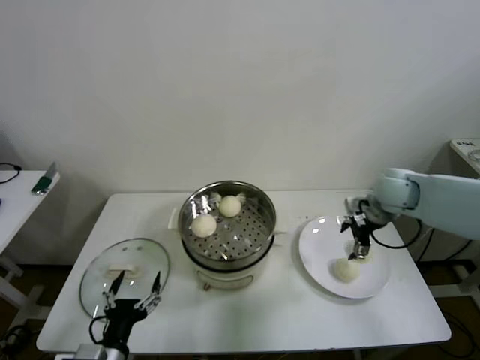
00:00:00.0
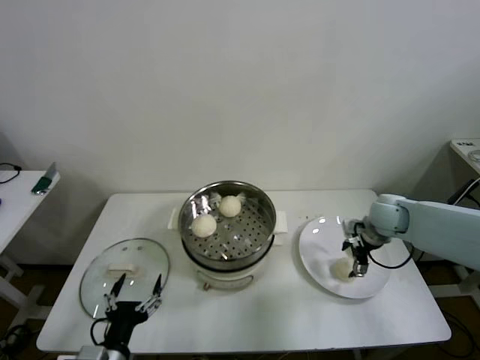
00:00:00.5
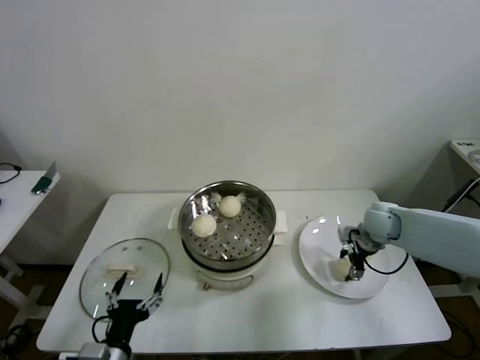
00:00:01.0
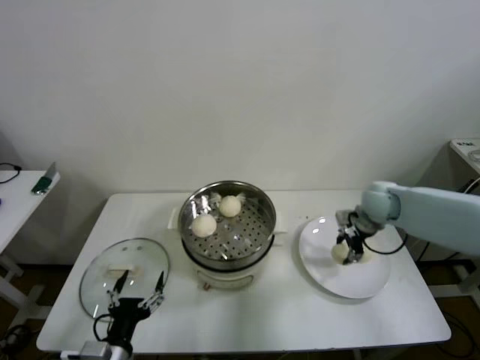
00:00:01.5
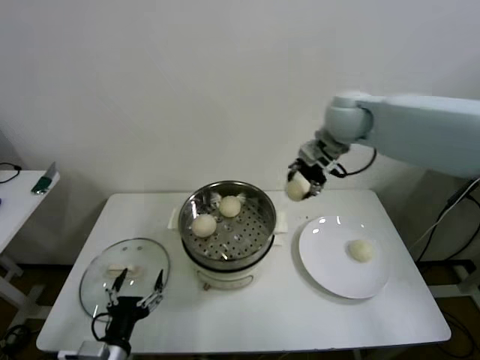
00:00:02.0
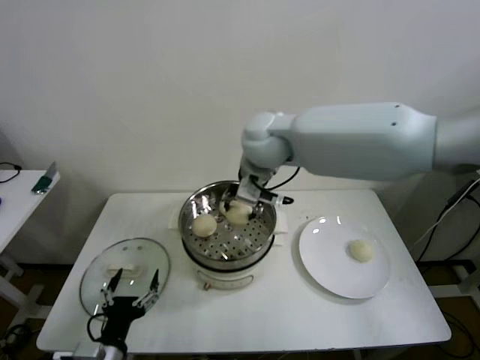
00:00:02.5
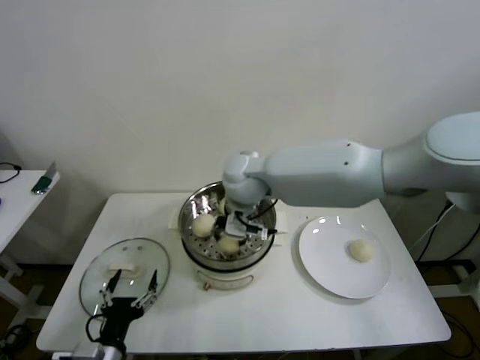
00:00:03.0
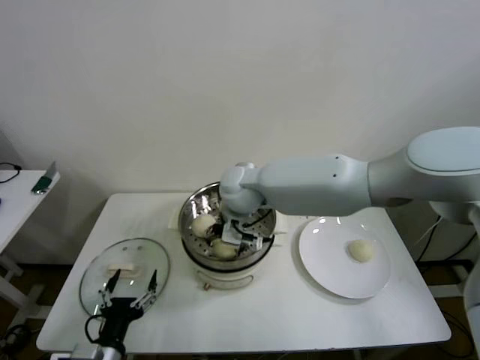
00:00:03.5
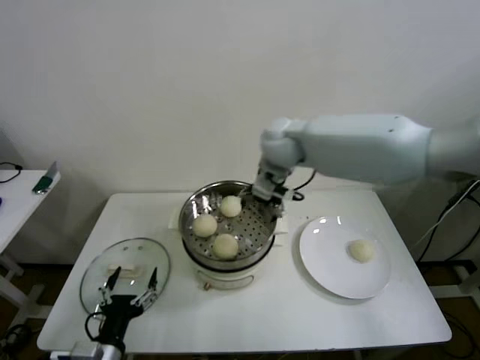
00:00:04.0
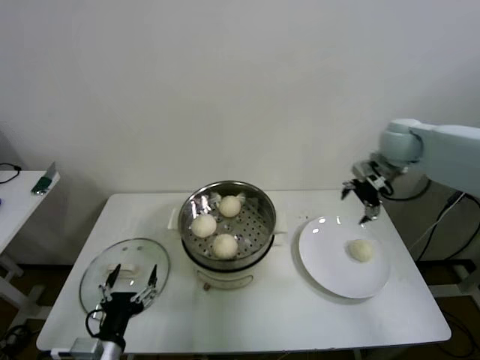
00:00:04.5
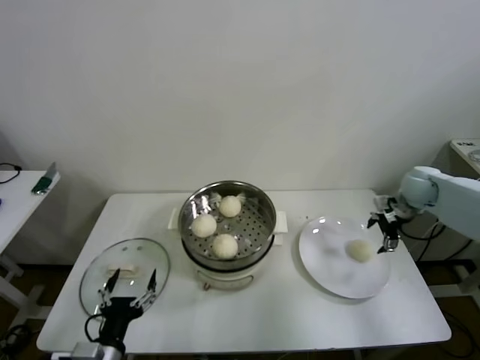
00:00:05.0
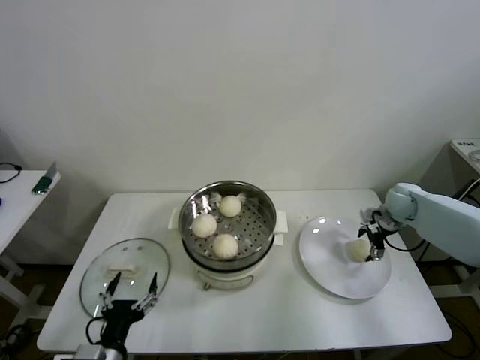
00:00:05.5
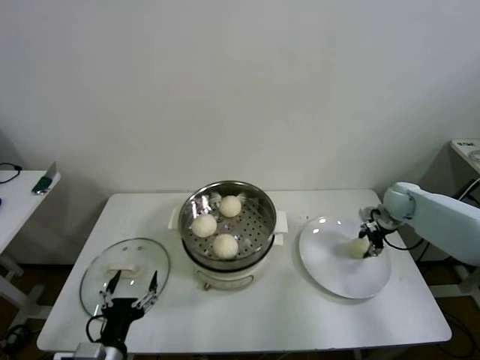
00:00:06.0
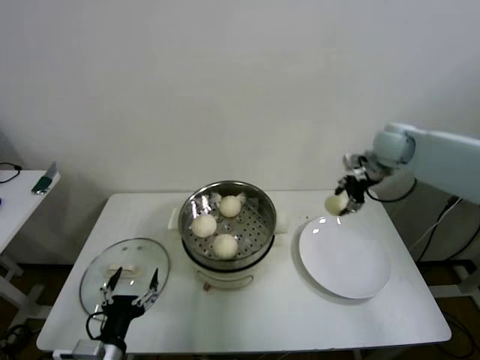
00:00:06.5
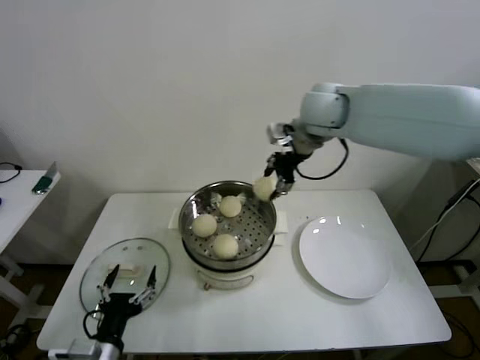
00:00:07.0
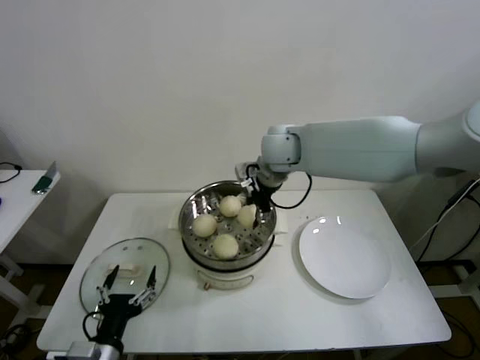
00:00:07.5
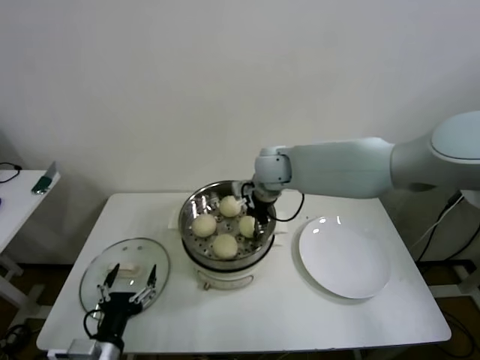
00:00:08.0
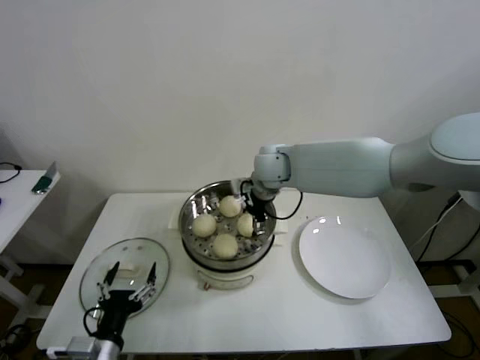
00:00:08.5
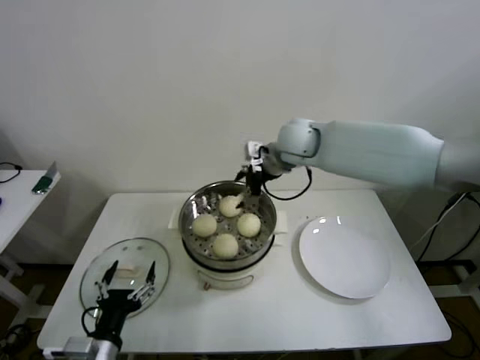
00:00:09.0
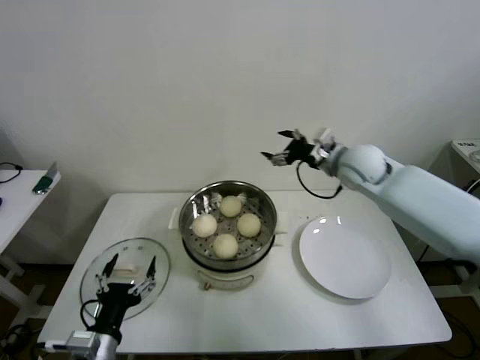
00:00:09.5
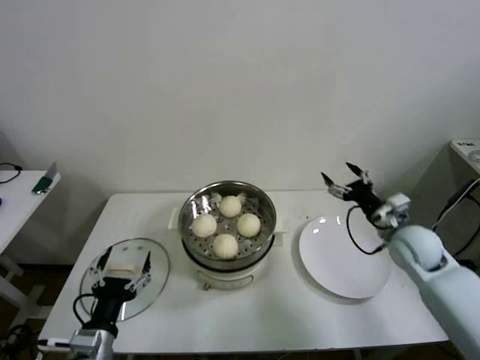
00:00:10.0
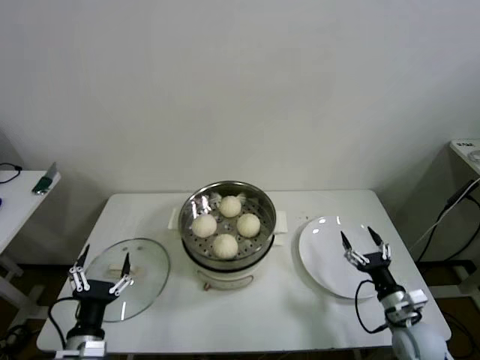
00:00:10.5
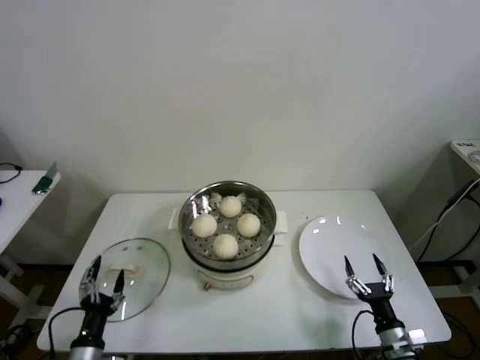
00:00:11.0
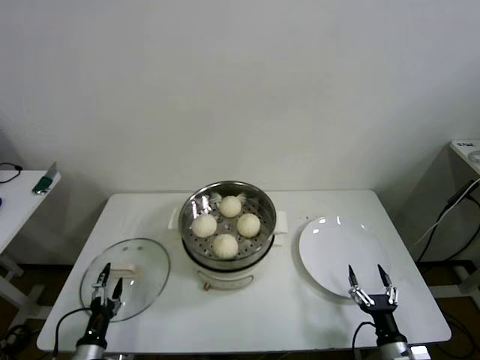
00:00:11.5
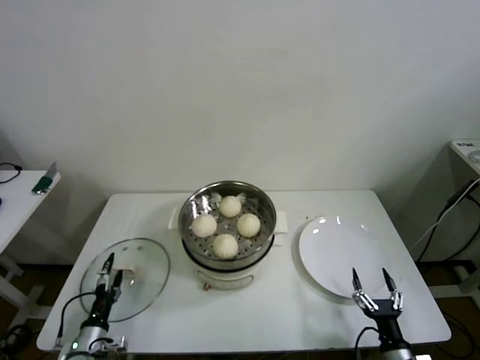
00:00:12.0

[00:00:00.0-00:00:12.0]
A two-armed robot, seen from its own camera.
Step, 00:00:01.5 to 00:00:03.0: Place the baozi on the steamer with right gripper.
Step, 00:00:04.0 to 00:00:05.5: Grasp the baozi in the plate with right gripper.
Step, 00:00:06.0 to 00:00:08.0: Place the baozi on the steamer with right gripper.
00:00:00.0 to 00:00:02.0: The right gripper is displaced upward and to the left by some 25 cm, and closes up.
00:00:02.0 to 00:00:04.0: The right gripper travels to the left and downward by roughly 10 cm, and opens up.
00:00:04.0 to 00:00:06.0: The right gripper shifts approximately 40 cm to the right and downward, and closes.
00:00:06.0 to 00:00:08.0: The right gripper moves to the left, approximately 35 cm.
00:00:08.0 to 00:00:10.0: The right gripper heads to the right, backward and downward, covering some 35 cm, and opens its fingers.
00:00:10.0 to 00:00:12.0: The right gripper goes about 30 cm backward and downward, while the left gripper heads downward and to the left, covering some 20 cm.

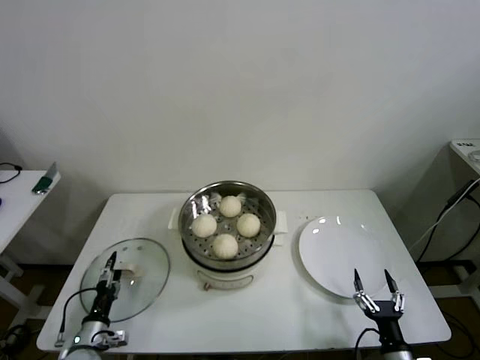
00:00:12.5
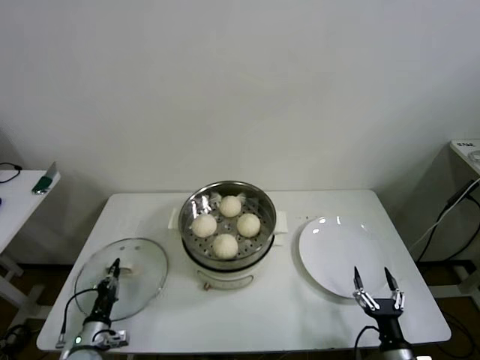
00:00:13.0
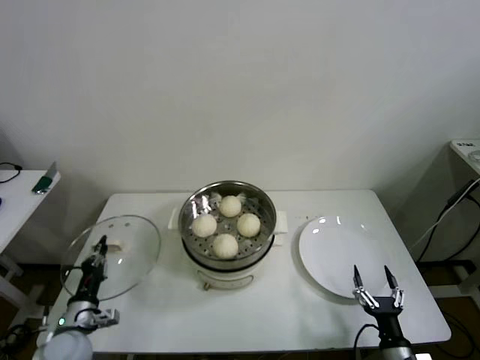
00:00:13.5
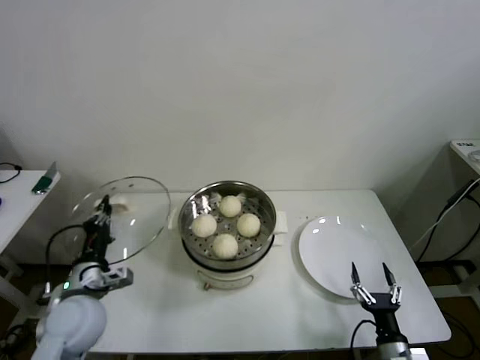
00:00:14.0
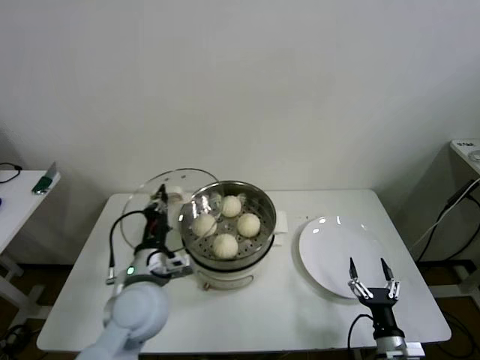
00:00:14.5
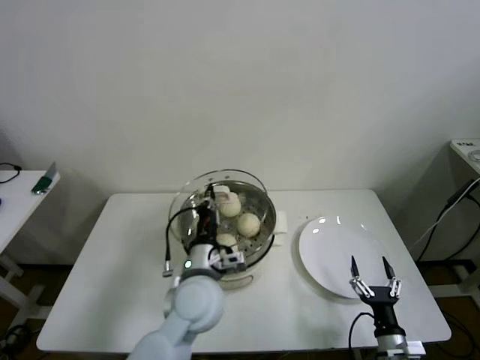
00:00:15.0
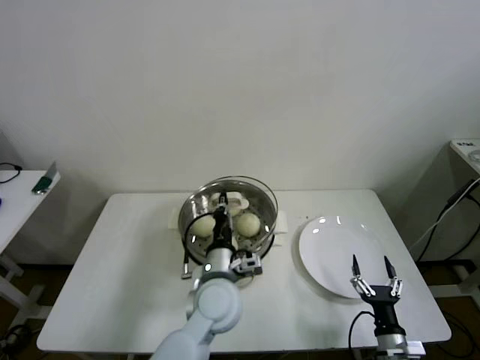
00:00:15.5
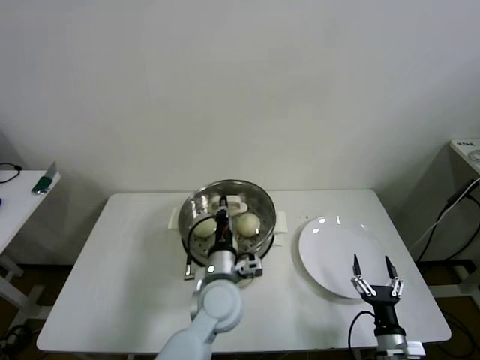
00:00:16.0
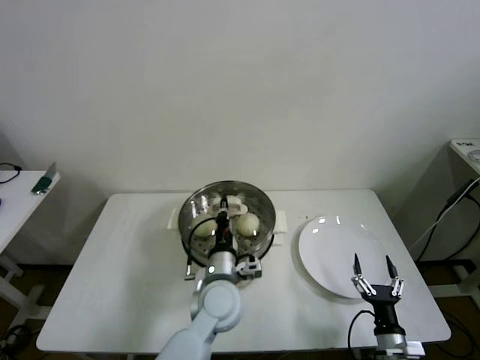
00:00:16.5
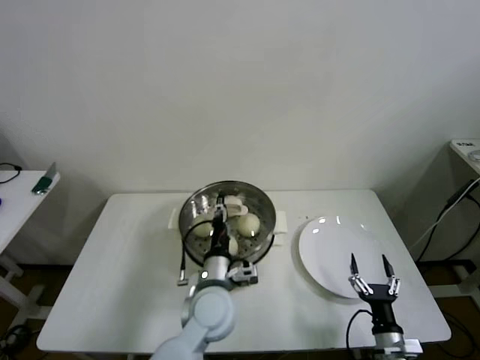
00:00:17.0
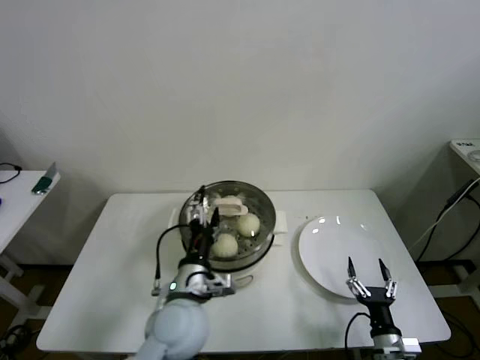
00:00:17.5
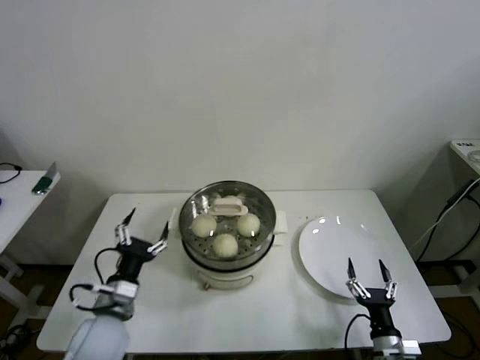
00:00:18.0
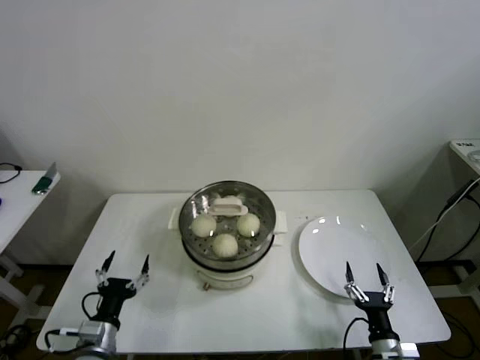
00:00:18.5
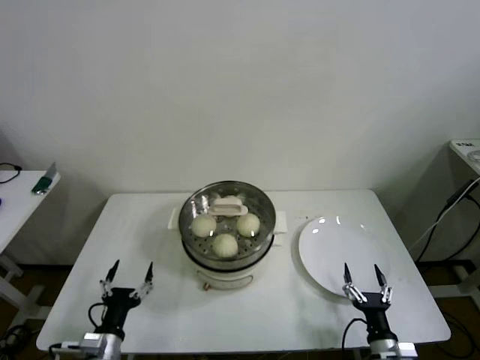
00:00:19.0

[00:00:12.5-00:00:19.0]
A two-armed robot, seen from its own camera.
Step, 00:00:13.5 to 00:00:16.5: Place the pot lid on the steamer with left gripper.
00:00:12.5 to 00:00:14.5: The left gripper goes roughly 30 cm upward and to the right, and closes its fingers.
00:00:14.5 to 00:00:17.0: The left gripper goes some 15 cm to the right and downward, and opens.
00:00:17.0 to 00:00:19.0: The left gripper moves to the left, backward and downward, roughly 30 cm, and opens its fingers.
